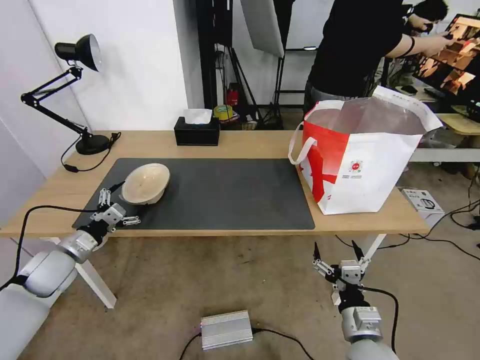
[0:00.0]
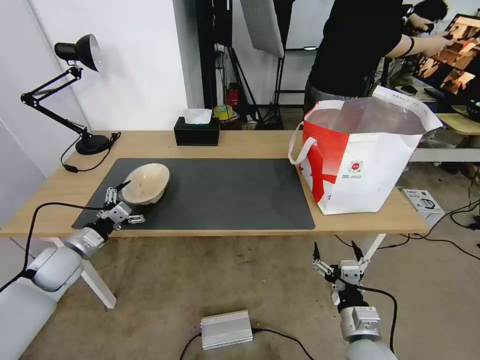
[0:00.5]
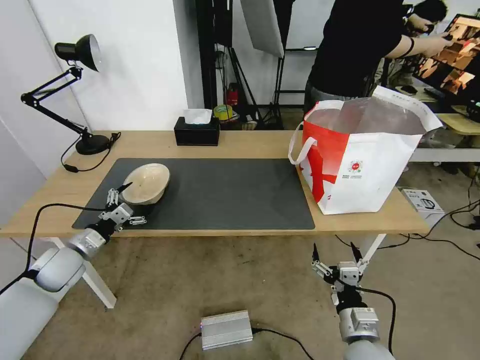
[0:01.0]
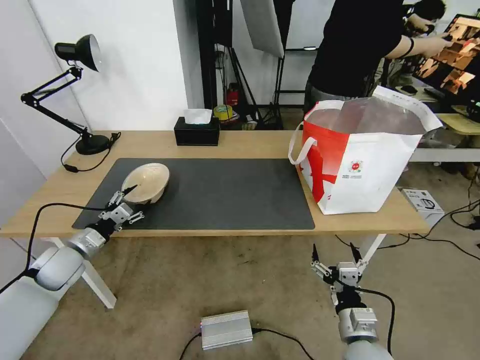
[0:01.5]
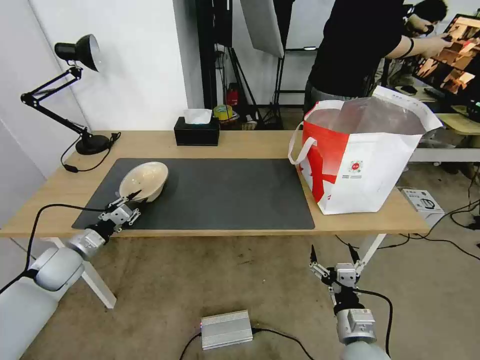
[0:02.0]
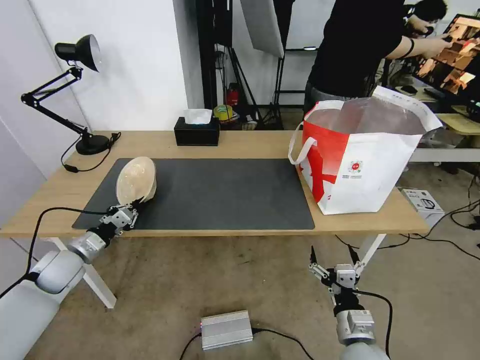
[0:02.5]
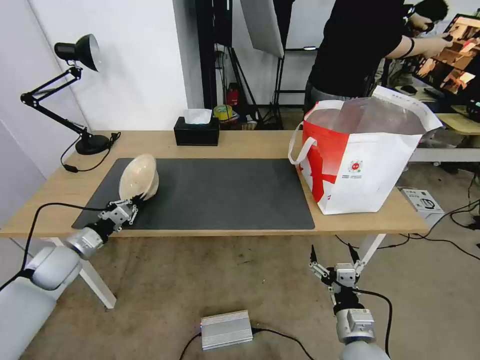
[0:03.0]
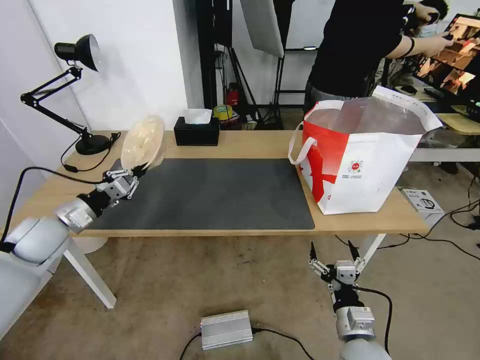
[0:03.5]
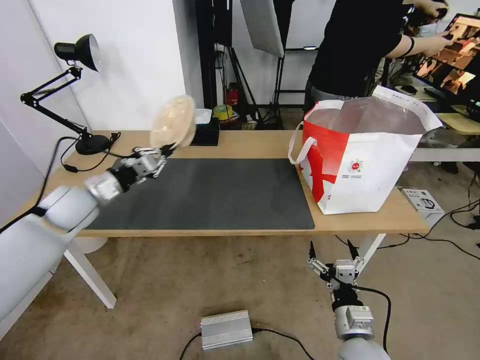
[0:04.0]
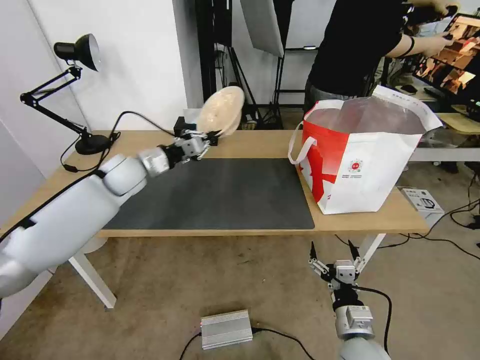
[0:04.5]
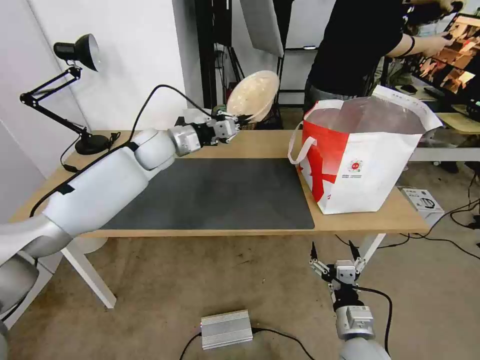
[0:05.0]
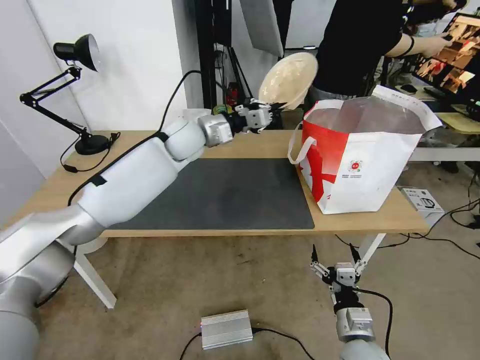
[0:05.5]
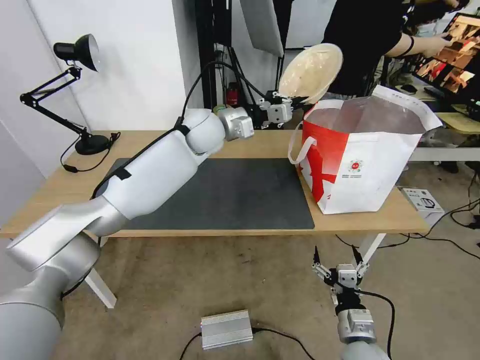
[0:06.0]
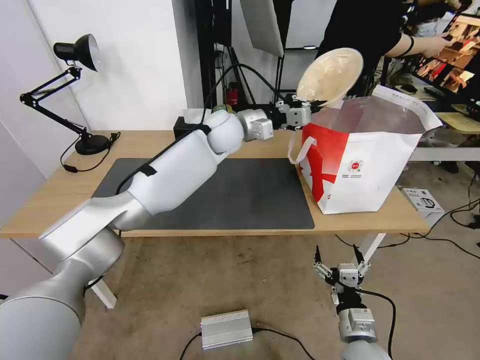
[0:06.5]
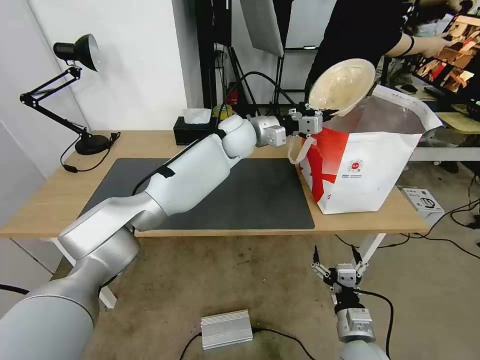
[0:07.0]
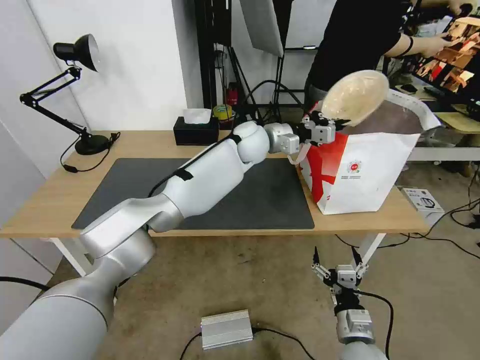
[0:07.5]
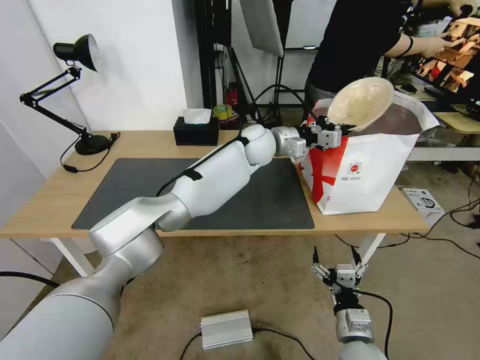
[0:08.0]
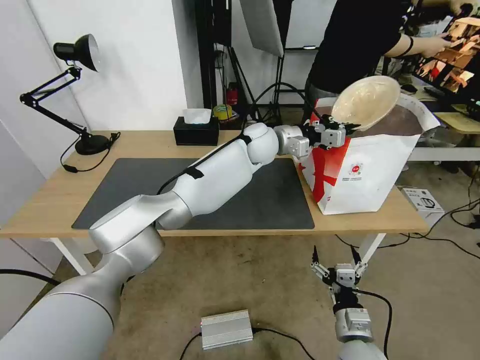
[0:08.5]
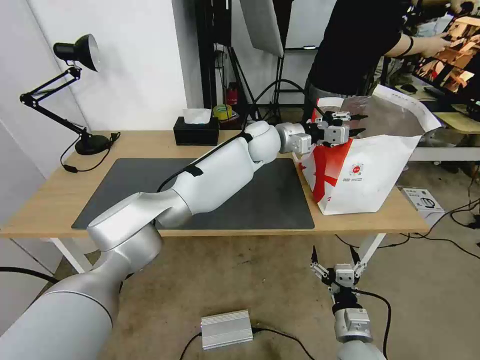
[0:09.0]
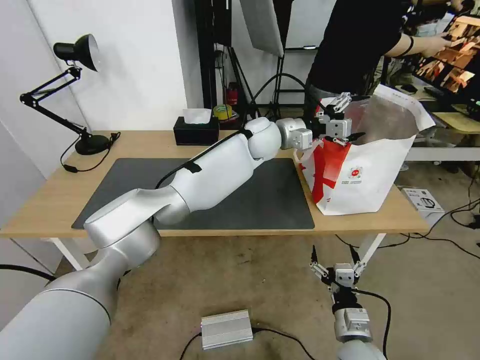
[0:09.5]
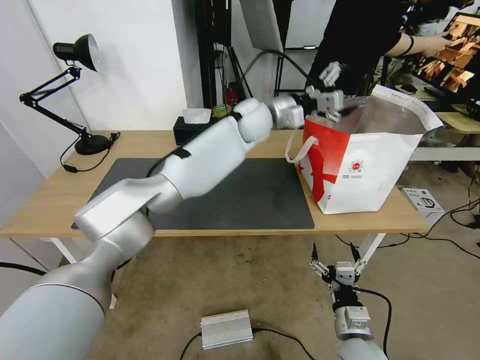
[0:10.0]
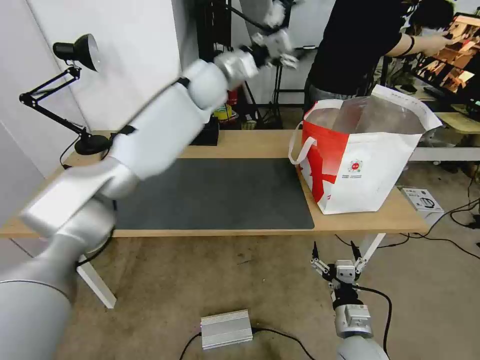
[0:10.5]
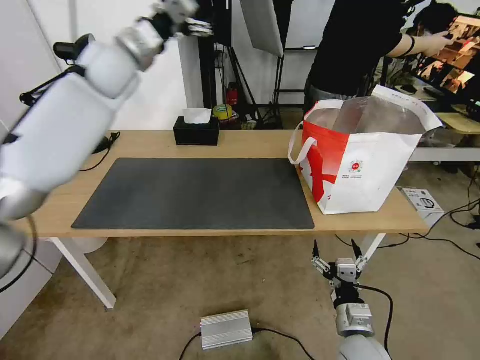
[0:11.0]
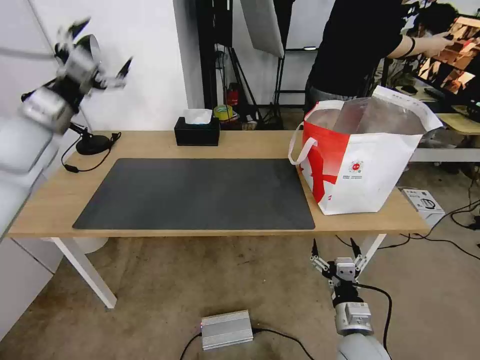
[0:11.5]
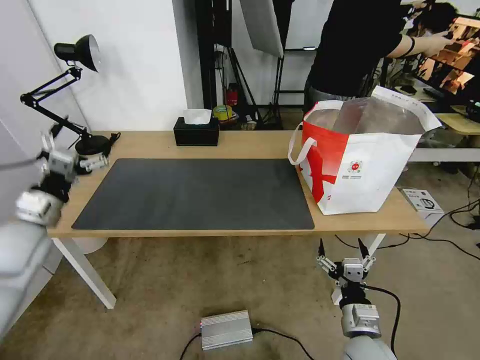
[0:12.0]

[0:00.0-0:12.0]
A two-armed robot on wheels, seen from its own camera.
Task of the whole recording: Pick up the trash from the table and place it into the takeout bag.
0:00.0 to 0:02.0: The left gripper closes up.
0:02.0 to 0:04.0: The left gripper moves upward, forward and to the right, roughly 15 cm.
0:04.0 to 0:06.0: The left gripper is displaced to the right and forward by roughly 30 cm.
0:06.0 to 0:08.0: The left gripper travels to the right by approximately 15 cm.
0:08.0 to 0:10.0: The left gripper goes about 5 cm upward, and opens its fingers.
0:10.0 to 0:12.0: The left gripper is displaced to the left and backward by some 50 cm.

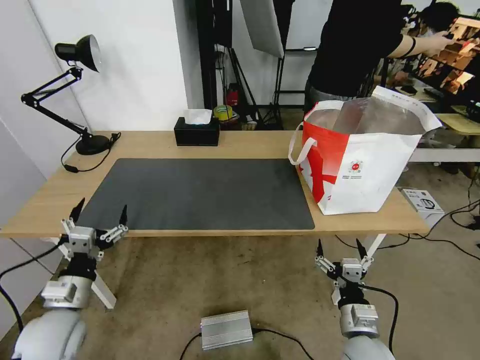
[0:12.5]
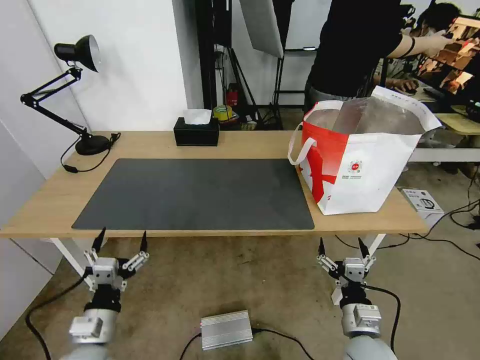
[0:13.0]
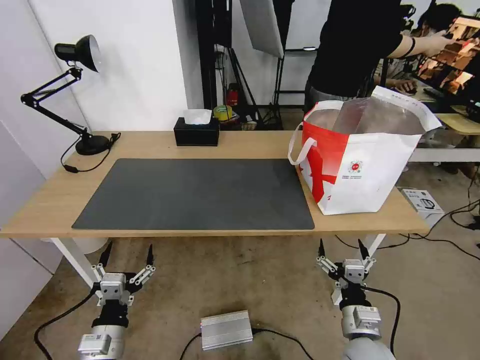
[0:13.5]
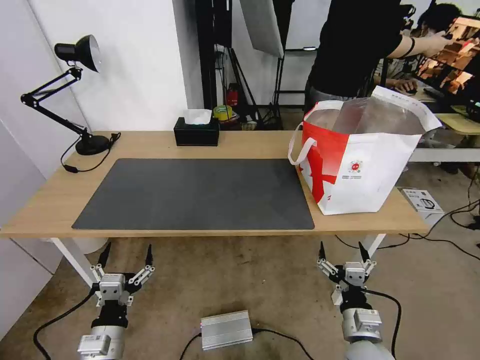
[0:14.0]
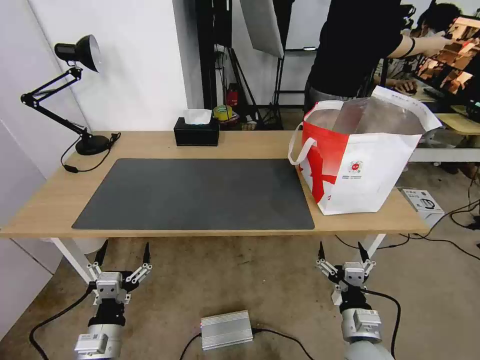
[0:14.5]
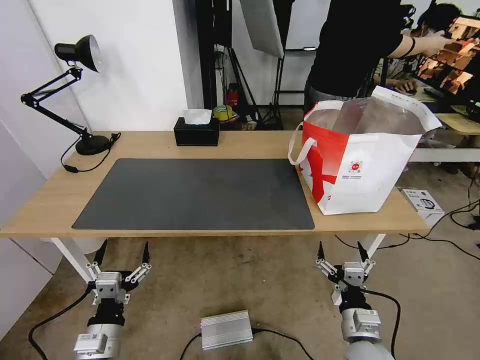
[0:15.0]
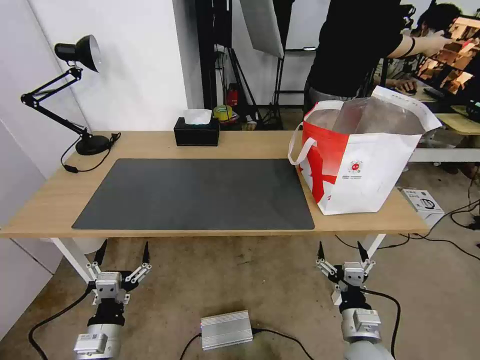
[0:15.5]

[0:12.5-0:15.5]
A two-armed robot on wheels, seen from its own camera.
Task of the whole recording: Pick up the trash from the table and place it into the takeout bag.
0:12.5 to 0:14.0: The left gripper heads to the right, backward and downward, covering about 15 cm.
0:14.0 to 0:15.5: Neither gripper changes place.

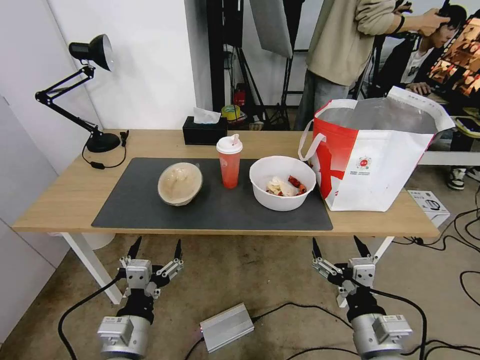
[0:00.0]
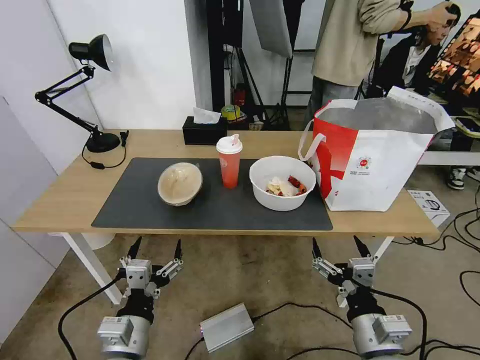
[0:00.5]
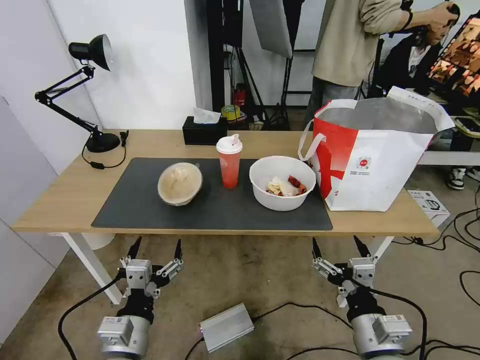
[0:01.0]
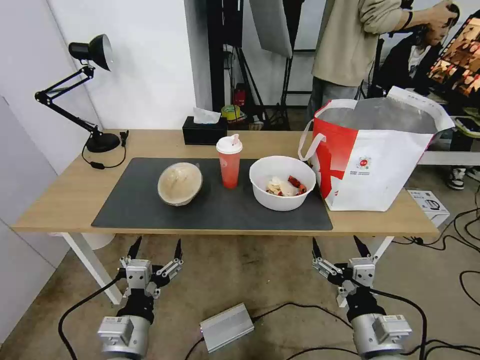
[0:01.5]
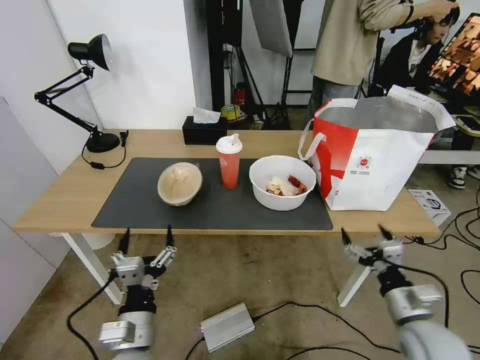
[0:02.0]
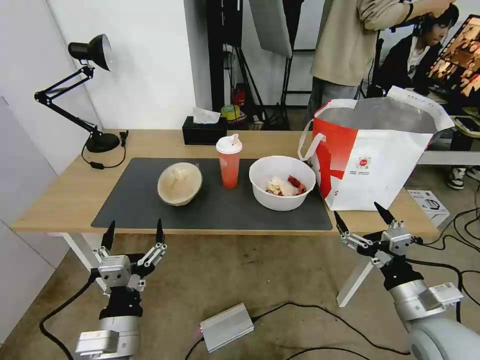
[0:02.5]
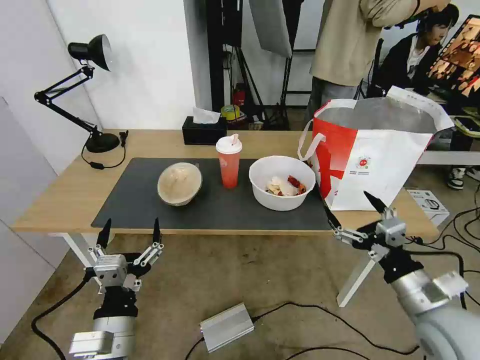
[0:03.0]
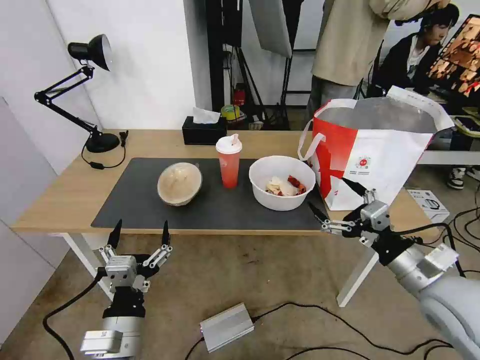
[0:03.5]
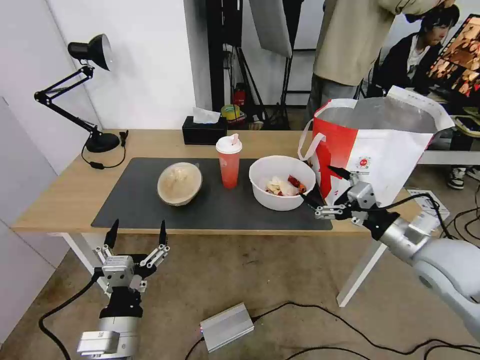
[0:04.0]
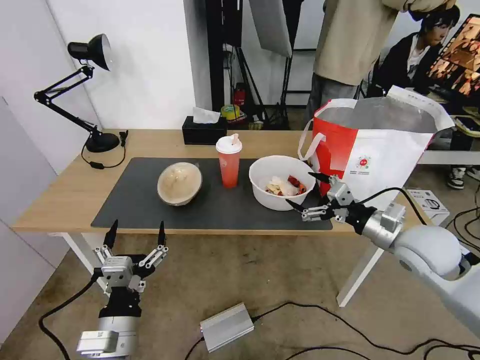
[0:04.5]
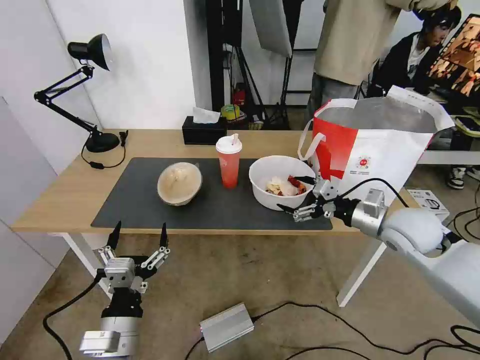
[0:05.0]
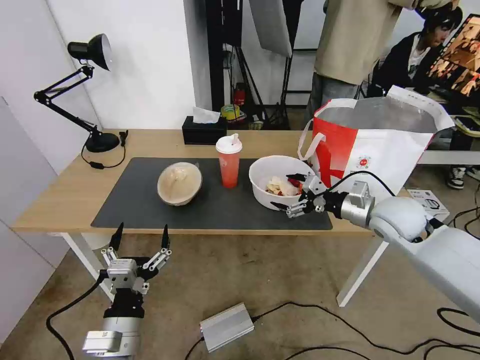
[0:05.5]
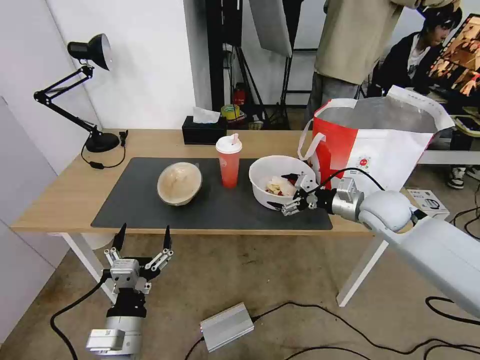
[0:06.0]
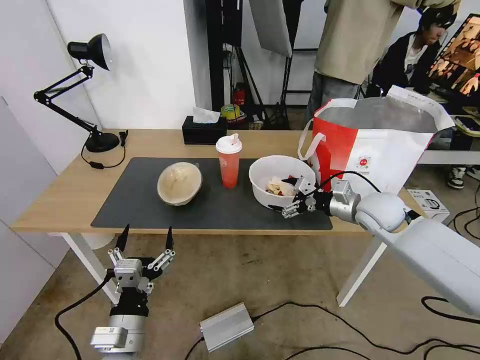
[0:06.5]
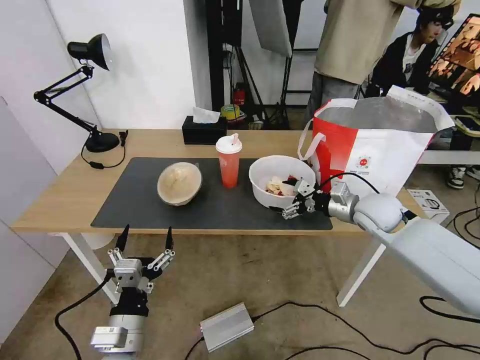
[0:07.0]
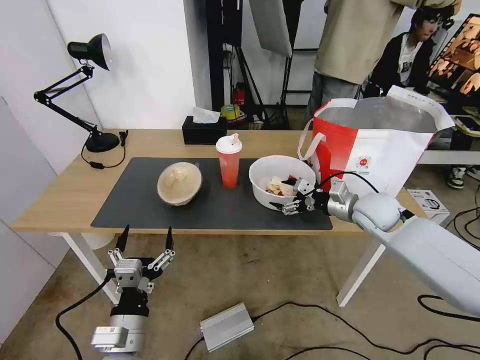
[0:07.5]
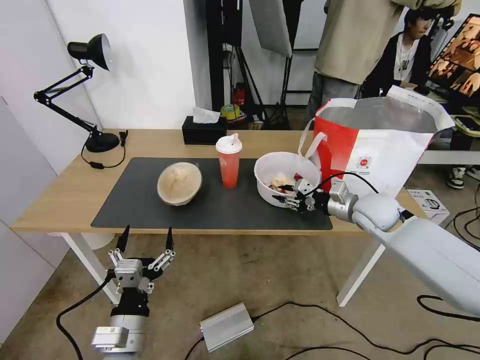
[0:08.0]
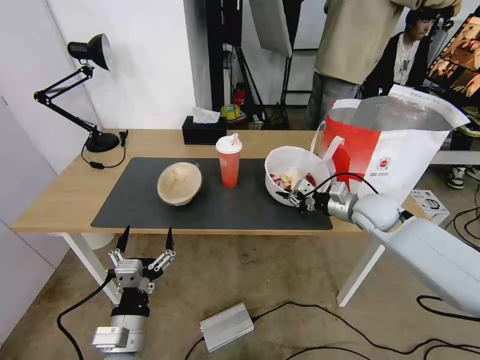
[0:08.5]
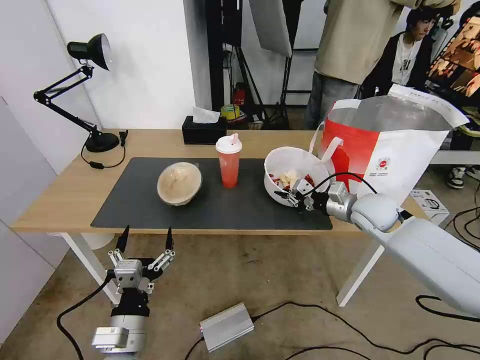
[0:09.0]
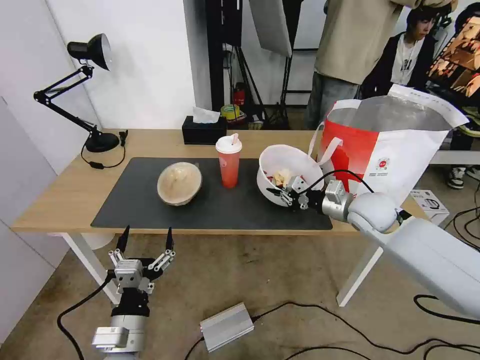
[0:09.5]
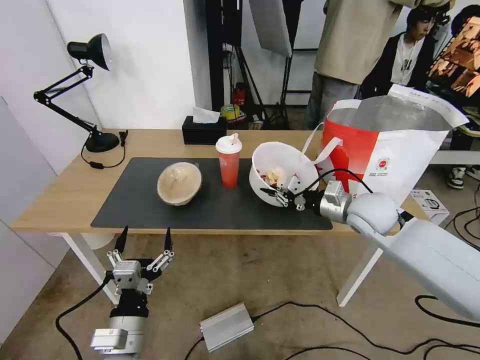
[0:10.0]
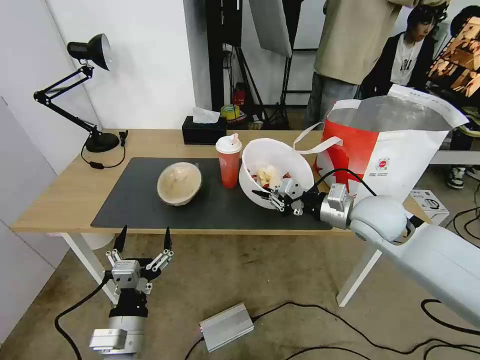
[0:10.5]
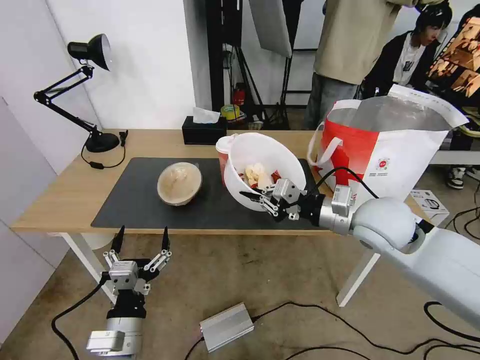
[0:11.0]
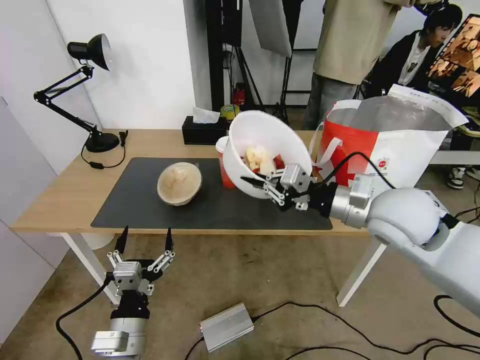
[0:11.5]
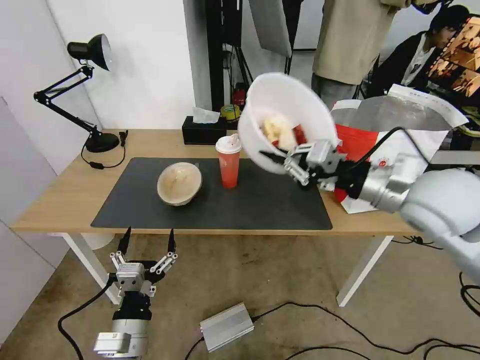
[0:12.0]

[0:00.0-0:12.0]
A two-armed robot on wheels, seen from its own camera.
Task of the whole recording: Pick up the trash from the table and place it into the takeout bag.
0:02.0 to 0:04.0: The right gripper goes about 15 cm upward and forward.
0:04.0 to 0:06.0: The right gripper goes about 15 cm forward.
0:06.0 to 0:08.0: The right gripper closes up.
0:08.0 to 0:10.0: The right gripper shifts by approximately 5 cm, and closes up.
0:10.0 to 0:12.0: The right gripper goes about 15 cm upward and backward.
